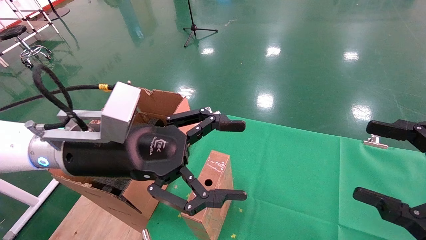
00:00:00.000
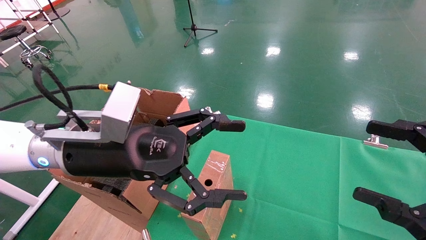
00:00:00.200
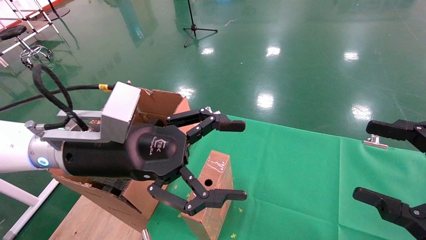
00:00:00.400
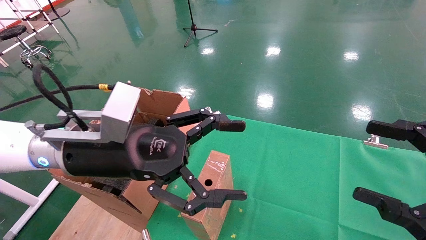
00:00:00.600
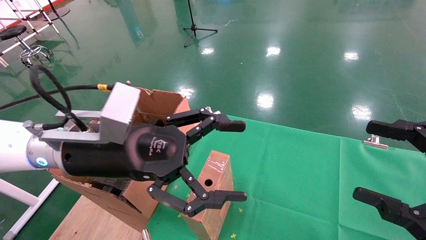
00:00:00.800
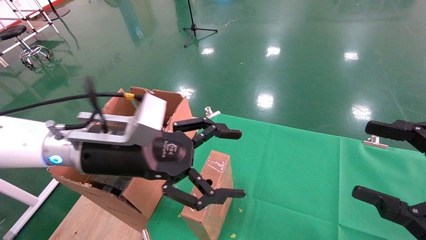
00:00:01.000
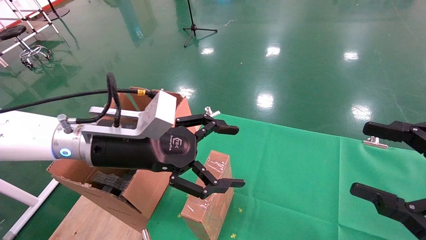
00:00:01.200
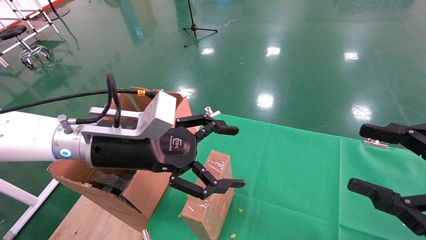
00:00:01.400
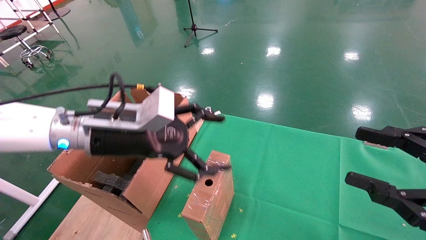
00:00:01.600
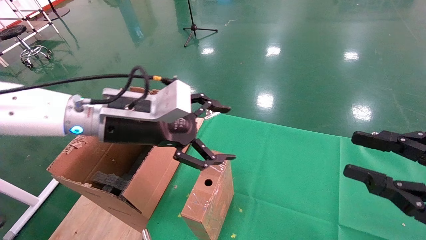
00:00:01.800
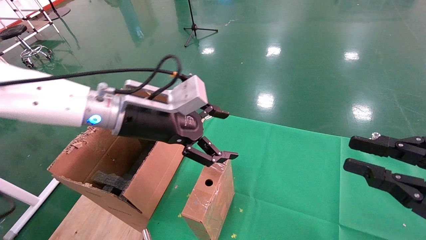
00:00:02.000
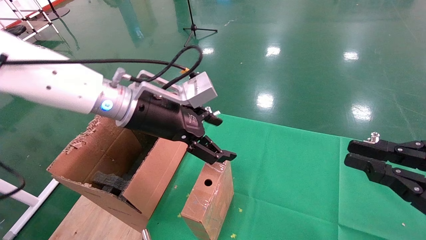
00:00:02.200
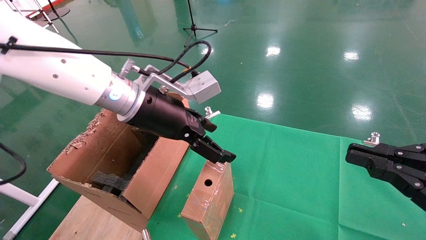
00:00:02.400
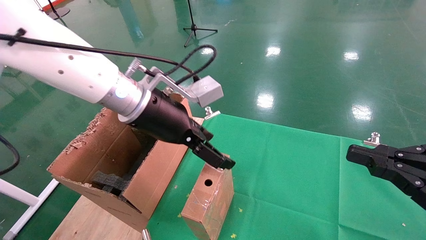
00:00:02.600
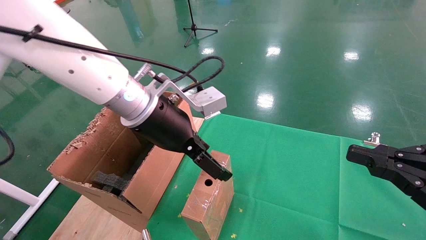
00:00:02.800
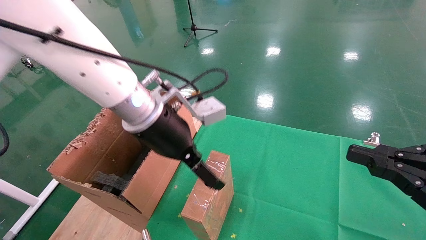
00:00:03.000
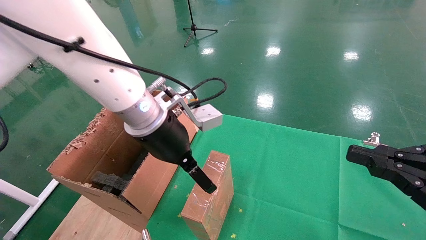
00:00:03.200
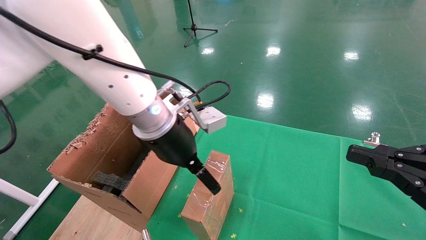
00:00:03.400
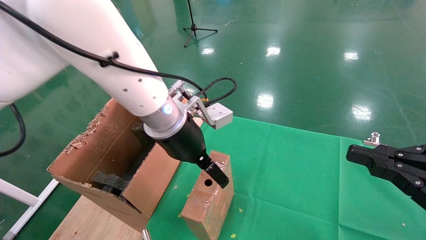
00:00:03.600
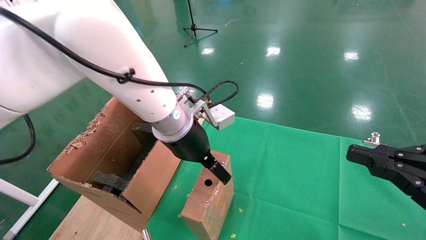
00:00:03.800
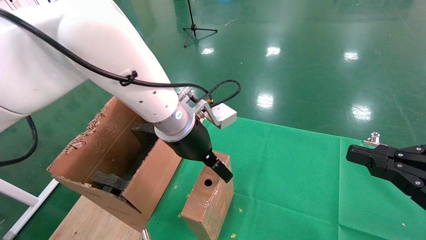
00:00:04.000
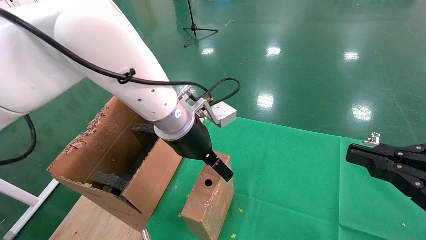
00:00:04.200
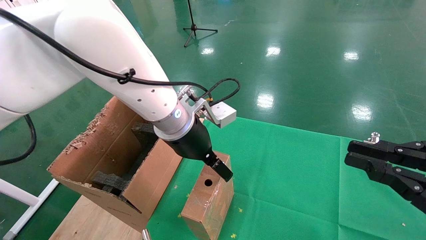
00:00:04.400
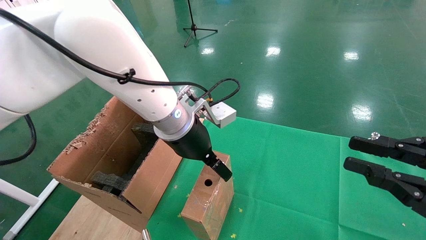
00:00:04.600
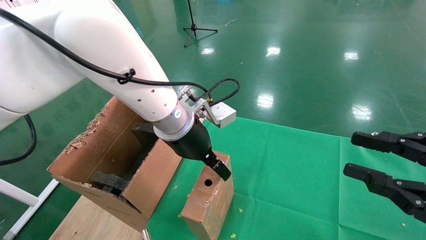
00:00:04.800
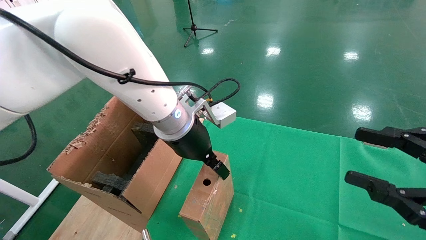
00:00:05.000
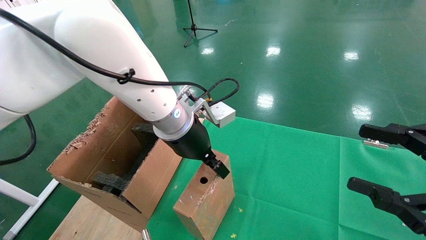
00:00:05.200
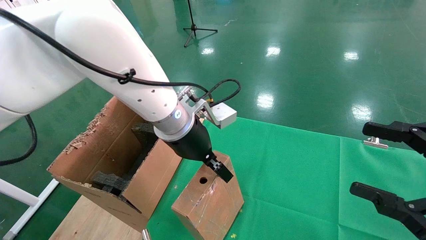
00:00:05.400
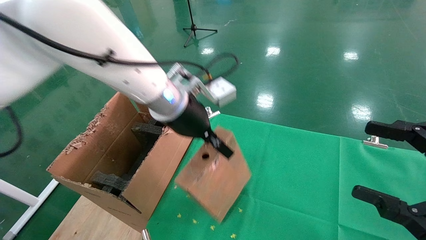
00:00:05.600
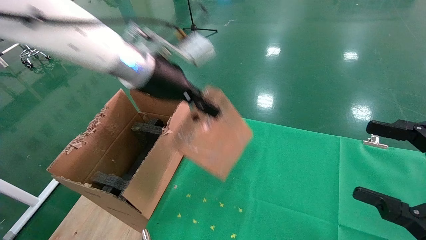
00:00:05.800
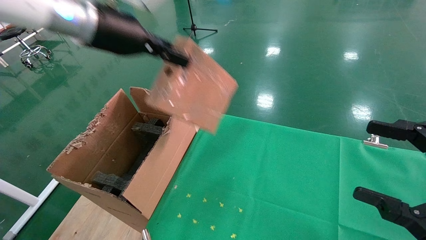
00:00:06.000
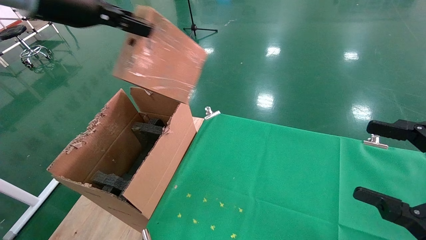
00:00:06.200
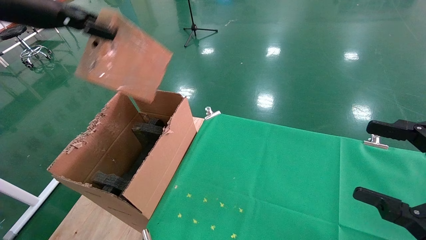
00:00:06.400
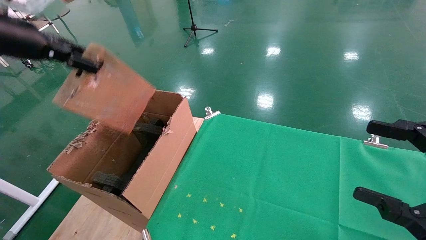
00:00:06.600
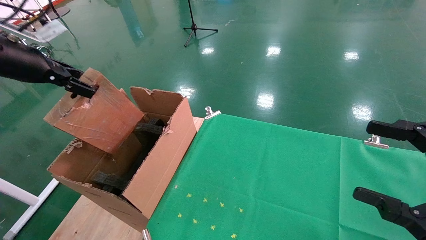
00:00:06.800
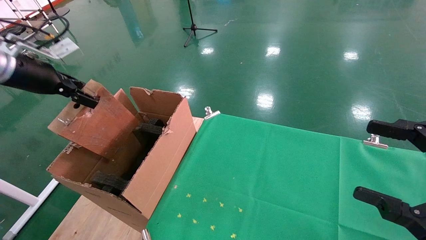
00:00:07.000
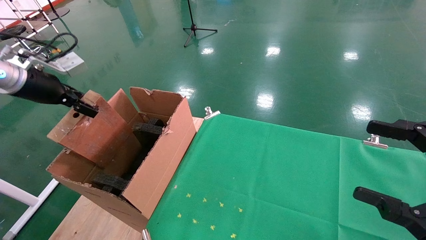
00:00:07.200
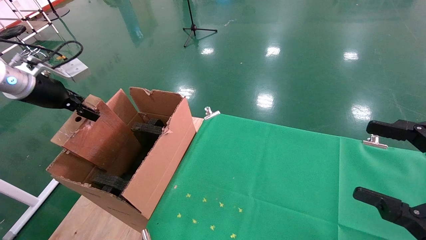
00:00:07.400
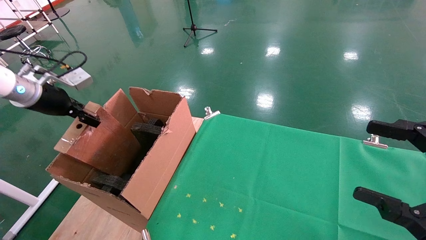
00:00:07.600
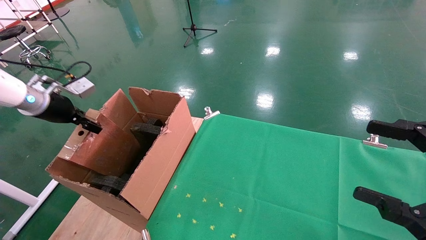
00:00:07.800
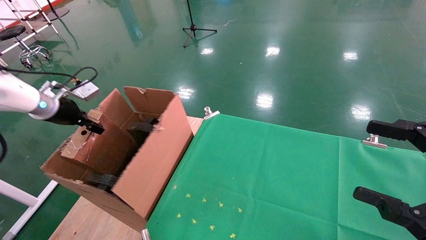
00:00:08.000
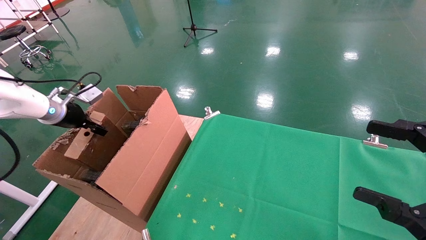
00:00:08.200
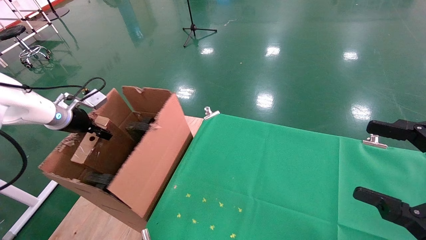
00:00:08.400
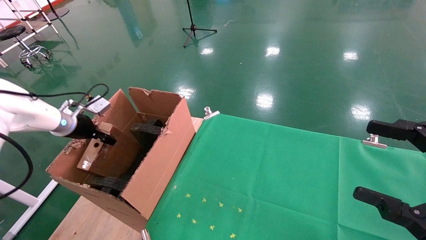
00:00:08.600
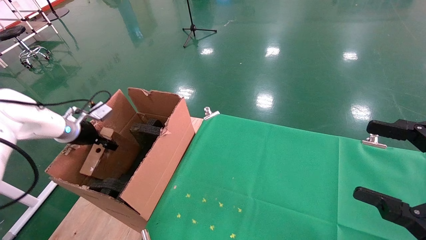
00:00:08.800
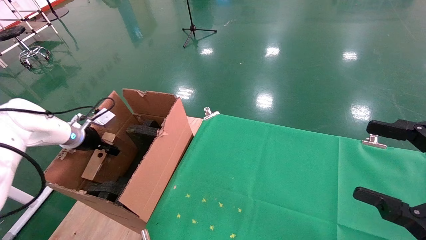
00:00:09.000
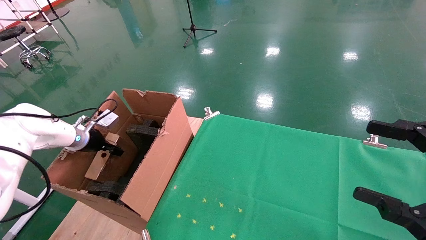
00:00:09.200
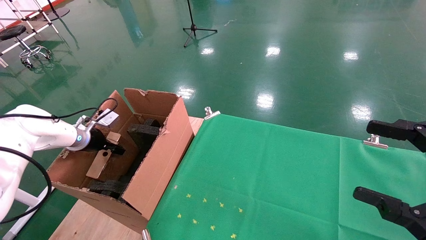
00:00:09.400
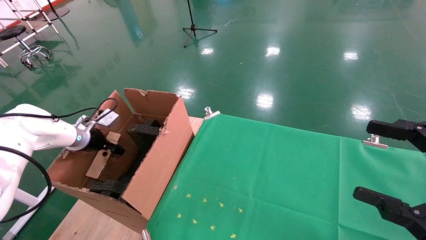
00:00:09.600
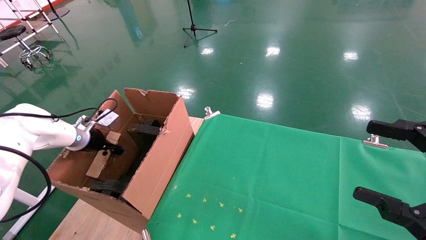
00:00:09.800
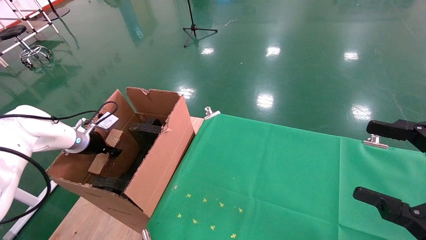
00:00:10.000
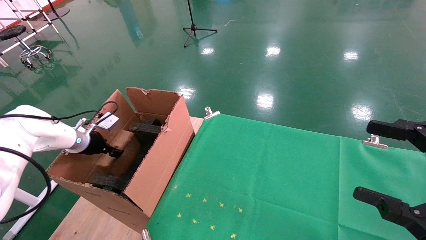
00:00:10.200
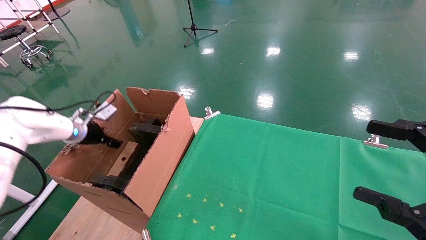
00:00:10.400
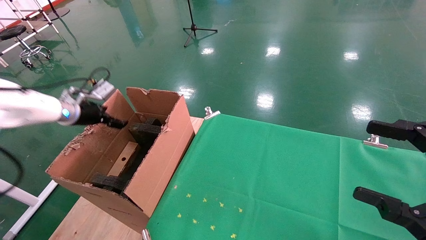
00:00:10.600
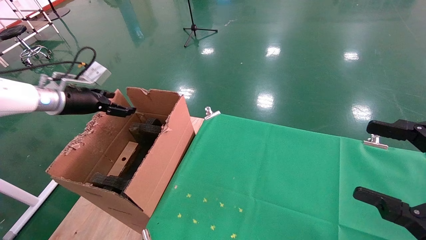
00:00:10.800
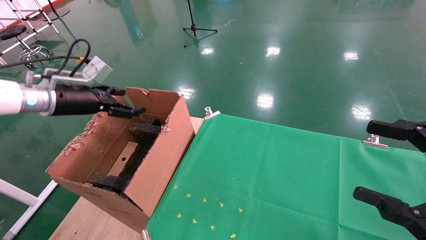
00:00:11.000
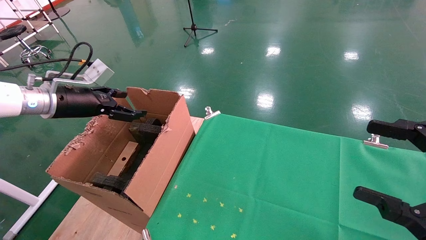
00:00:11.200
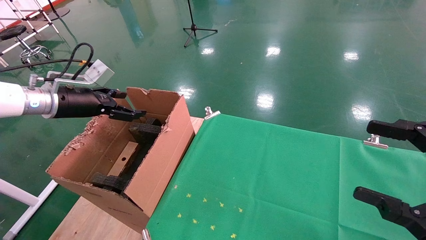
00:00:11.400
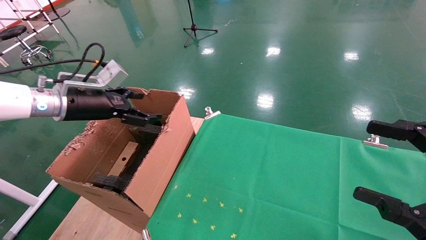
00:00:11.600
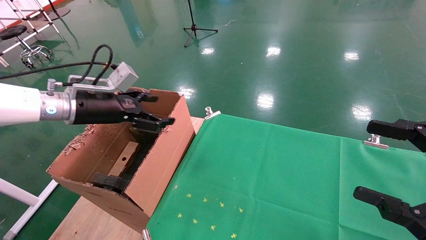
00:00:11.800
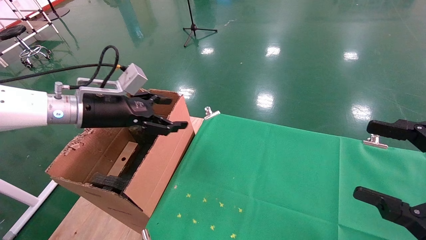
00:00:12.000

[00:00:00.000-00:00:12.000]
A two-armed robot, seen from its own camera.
Task of the whole recording: using a robotic arm to pick up a cardboard box and palace it the carton.
Step, 00:00:01.200 to 00:00:05.200: Pick up the mouse and the power cord paper box.
Step, 00:00:05.400 to 00:00:11.000: Place the mouse and the power cord paper box into the container.
00:00:01.600 to 00:00:03.000: The left gripper is displaced to the right by approximately 10 cm. The right gripper closes its fingers.
00:00:03.000 to 00:00:04.400: The left gripper ends up some 5 cm from where it was.
00:00:04.400 to 00:00:06.000: The left gripper shifts roughly 25 cm upward and to the left, and closes its fingers. Meanwhile the right gripper opens its fingers.
00:00:06.000 to 00:00:07.600: The left gripper is displaced to the left and downward by about 25 cm.
00:00:07.600 to 00:00:09.000: The left gripper goes about 15 cm downward and forward.
00:00:09.000 to 00:00:10.400: The left gripper opens.
00:00:10.400 to 00:00:12.000: The left gripper goes approximately 20 cm to the right, backward and upward, and opens its fingers.

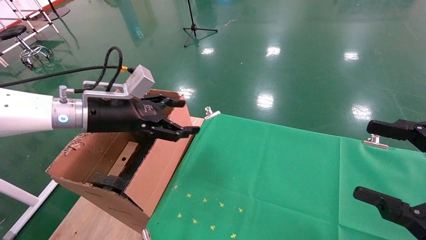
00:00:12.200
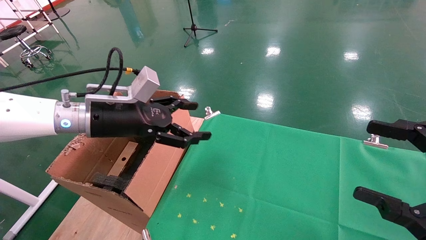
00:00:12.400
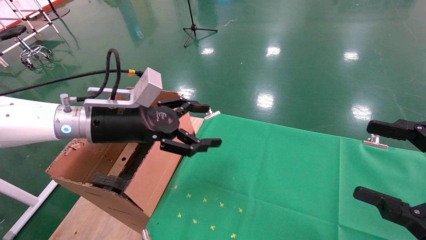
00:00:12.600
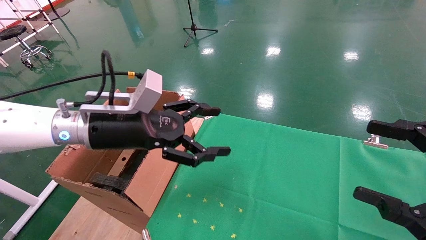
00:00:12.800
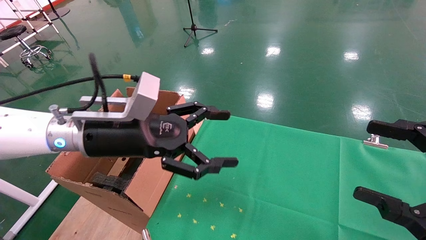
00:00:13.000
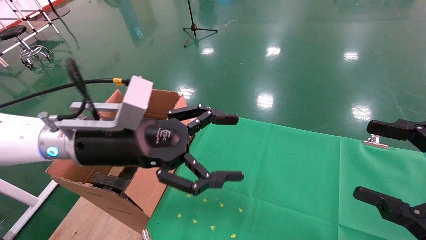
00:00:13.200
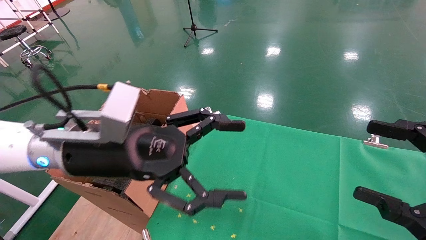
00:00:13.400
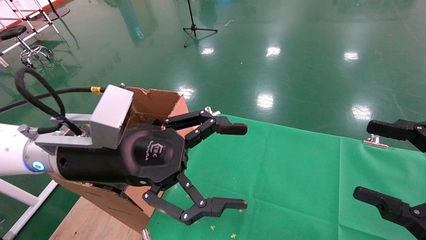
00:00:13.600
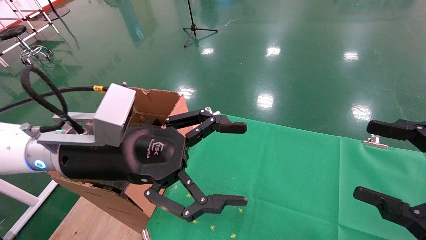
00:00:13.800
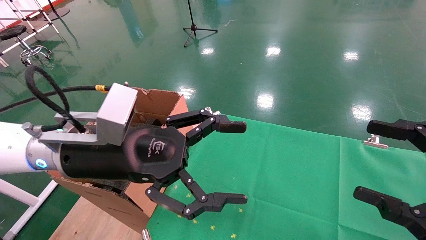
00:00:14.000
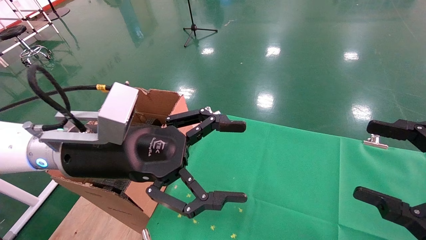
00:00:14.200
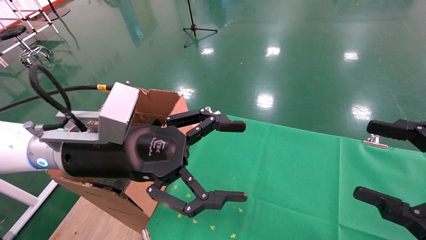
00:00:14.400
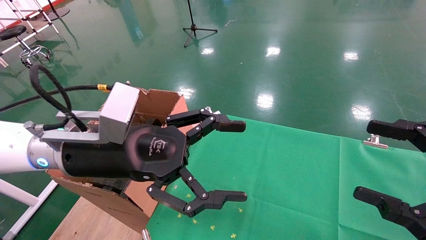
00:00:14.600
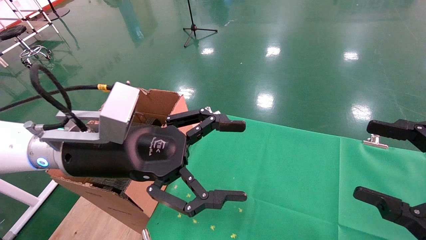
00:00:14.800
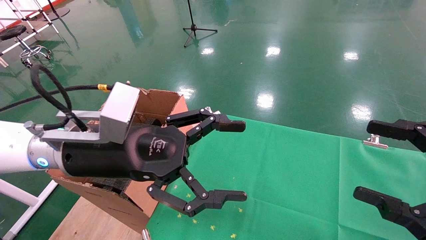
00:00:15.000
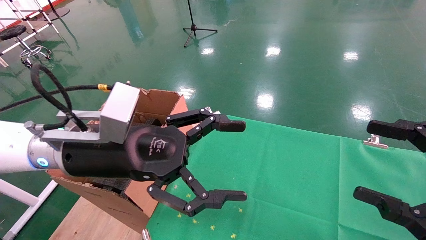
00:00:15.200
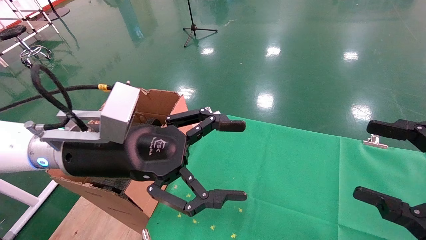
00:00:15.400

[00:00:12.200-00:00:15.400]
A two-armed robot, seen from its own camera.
Task of the whole recording: using a robotic arm to pick up a cardboard box and palace it the carton.
00:00:12.200 to 00:00:13.800: The left gripper shifts roughly 15 cm backward and to the right.
00:00:13.800 to 00:00:15.400: Both grippers stay put.

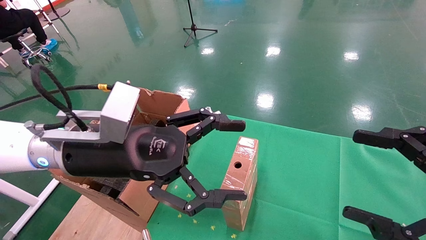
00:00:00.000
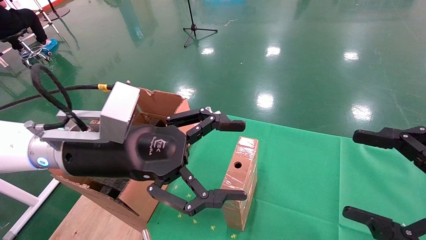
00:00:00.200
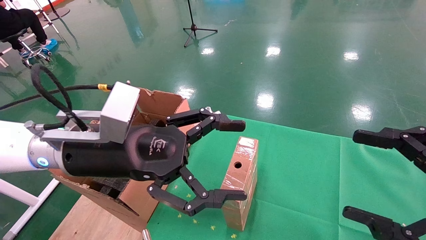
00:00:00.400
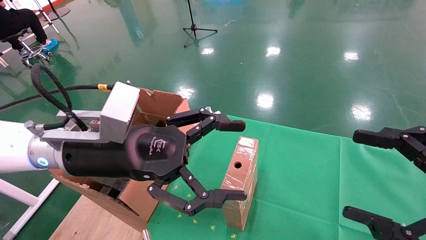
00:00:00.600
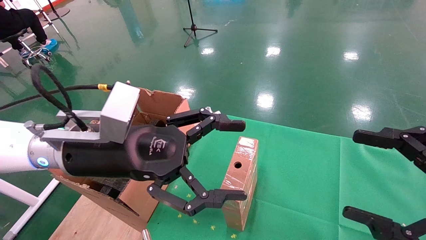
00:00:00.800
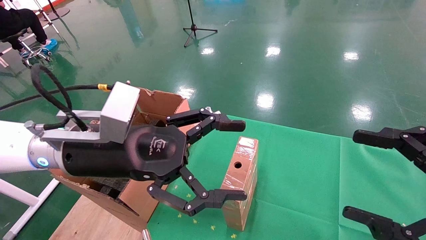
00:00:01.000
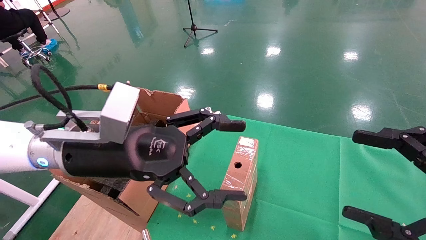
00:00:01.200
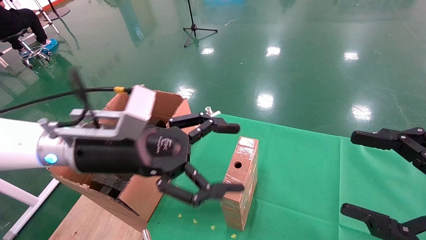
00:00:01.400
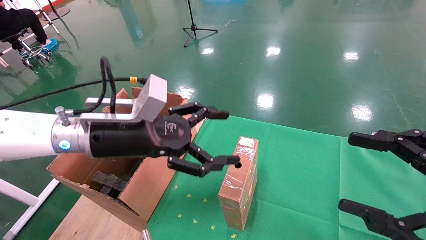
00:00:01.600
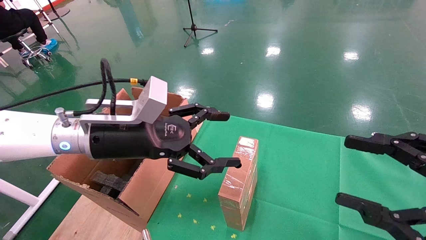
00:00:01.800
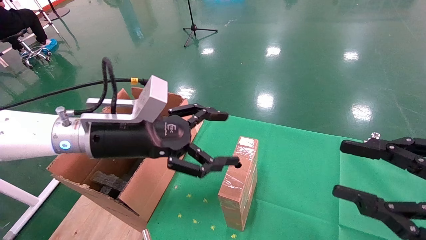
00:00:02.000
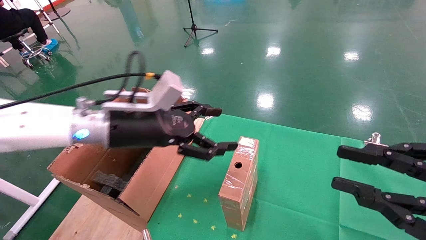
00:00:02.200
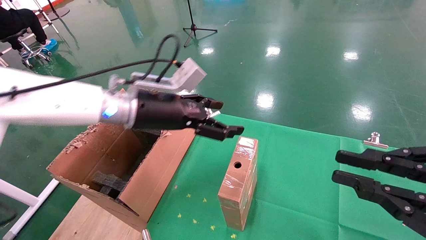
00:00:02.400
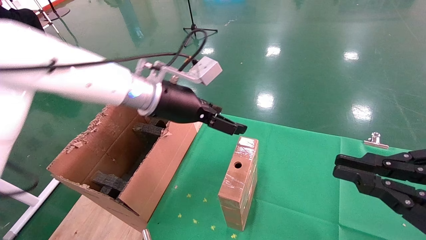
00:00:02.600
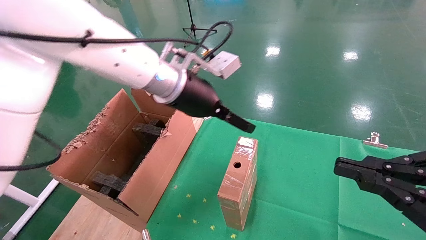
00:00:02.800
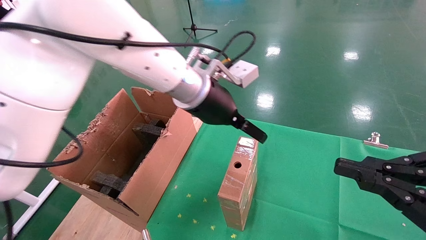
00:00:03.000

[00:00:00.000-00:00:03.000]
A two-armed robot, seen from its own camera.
Task of the whole recording: using a robotic arm to pick up a cardboard box and palace it the carton.
00:00:00.000 to 00:00:01.600: There are only small adjustments of the grippers.
00:00:01.600 to 00:00:03.000: The right gripper closes up. Meanwhile the left gripper moves to the right, forward and upward, roughly 15 cm.
